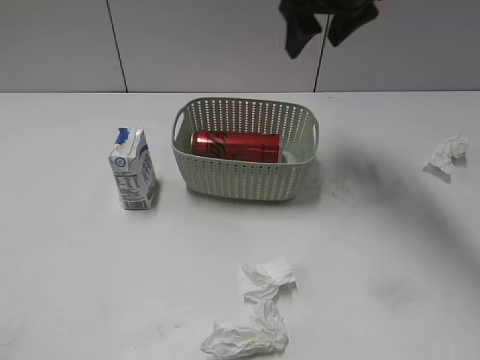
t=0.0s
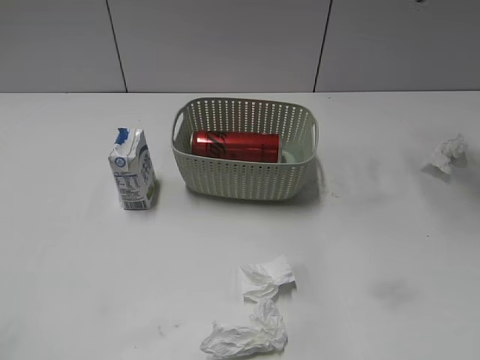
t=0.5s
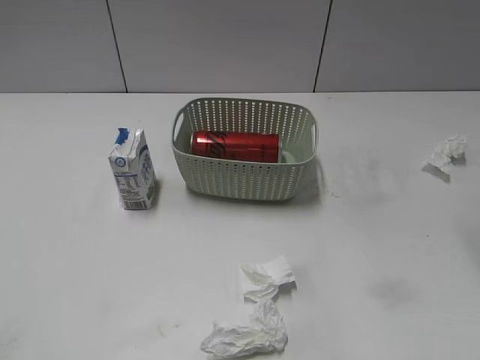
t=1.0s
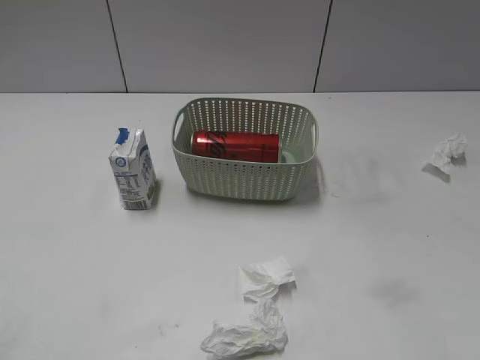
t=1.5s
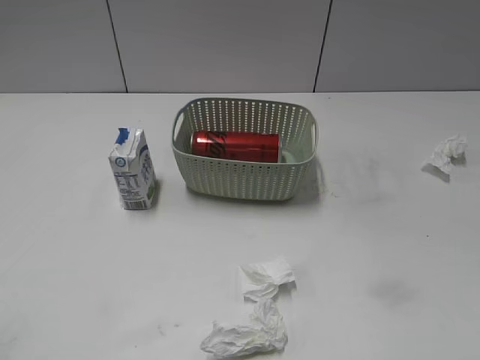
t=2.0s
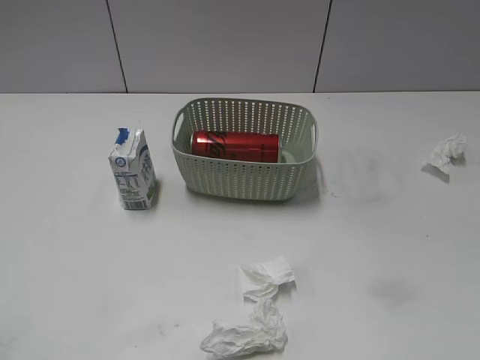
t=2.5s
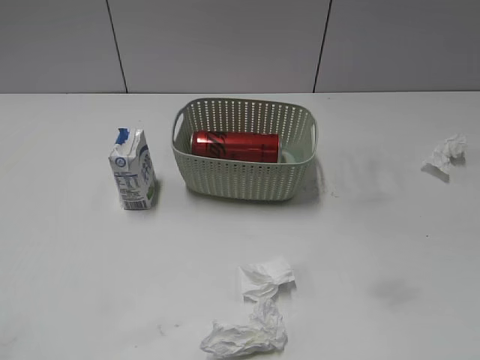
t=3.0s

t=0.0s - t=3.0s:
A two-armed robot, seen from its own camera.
t=0.0s - t=1.5s: The right gripper moves backward and to the right, approximately 35 cm.
